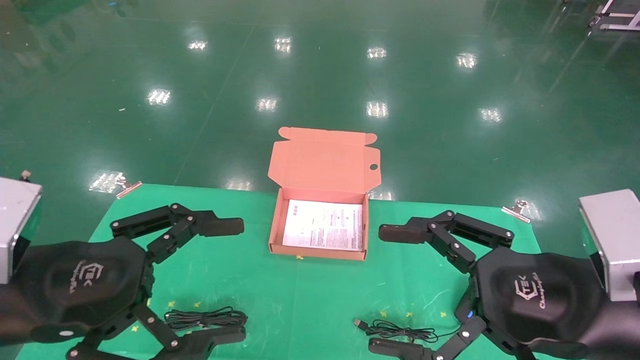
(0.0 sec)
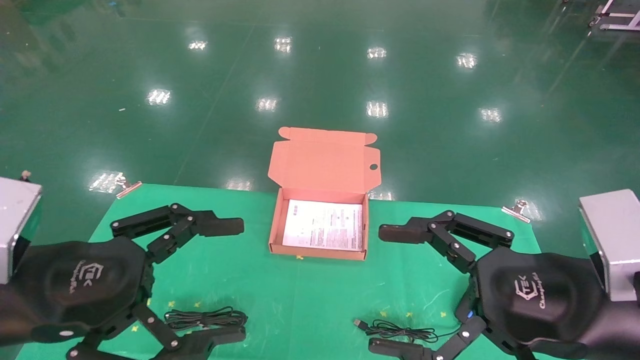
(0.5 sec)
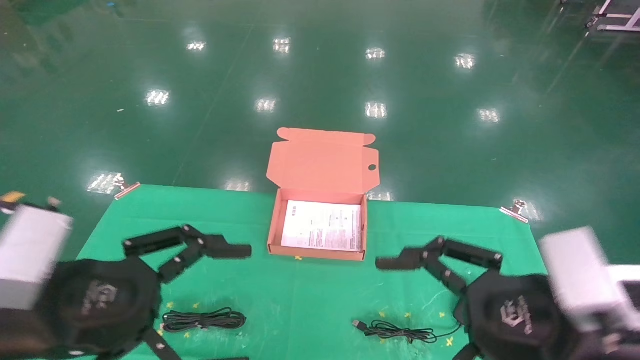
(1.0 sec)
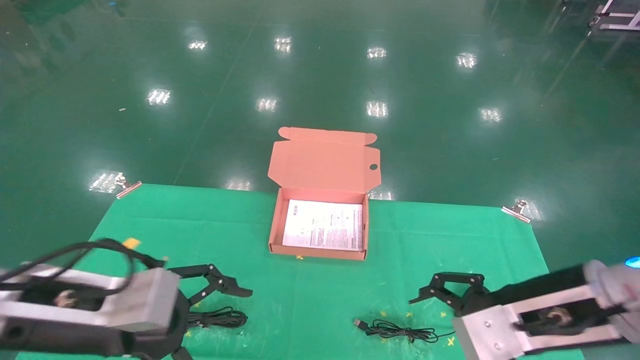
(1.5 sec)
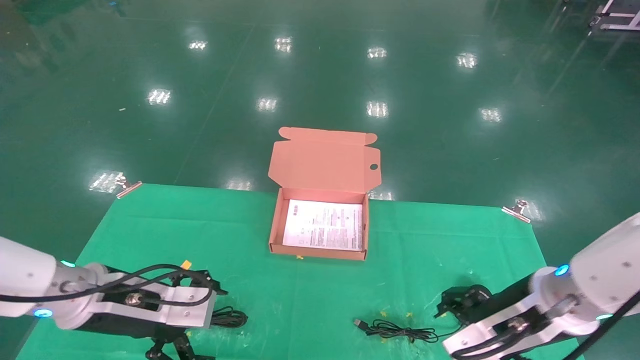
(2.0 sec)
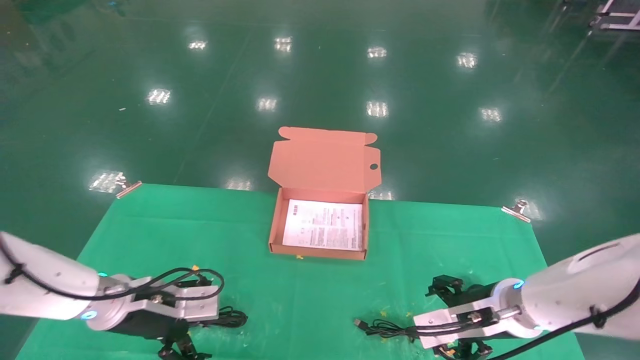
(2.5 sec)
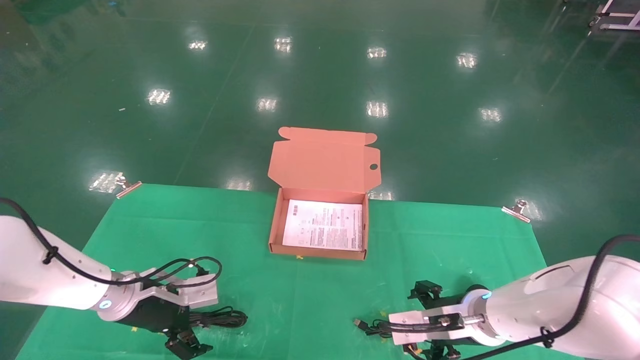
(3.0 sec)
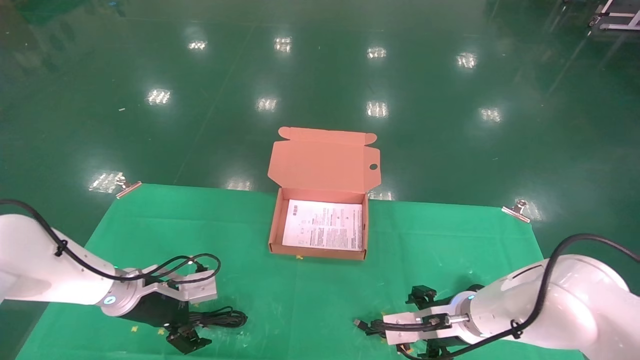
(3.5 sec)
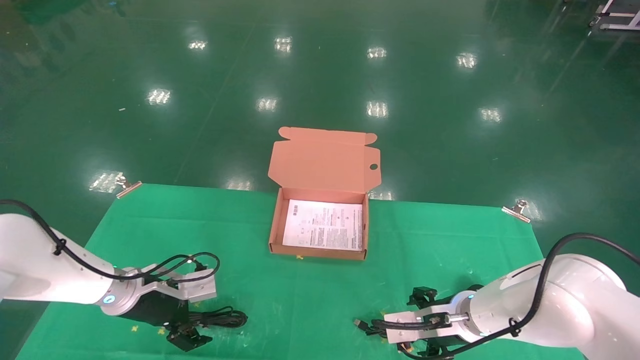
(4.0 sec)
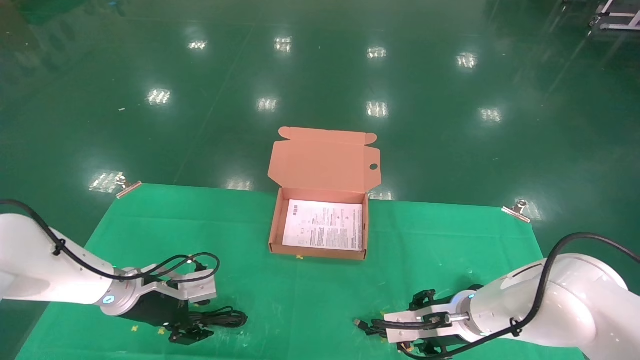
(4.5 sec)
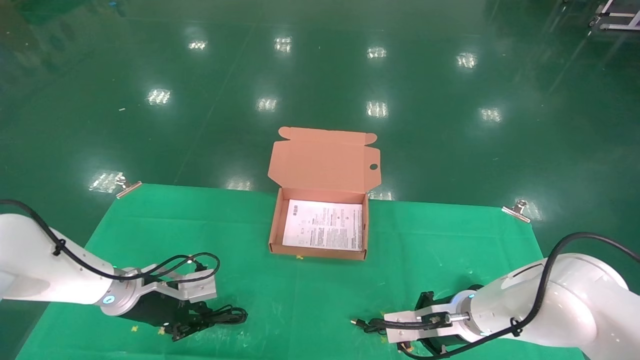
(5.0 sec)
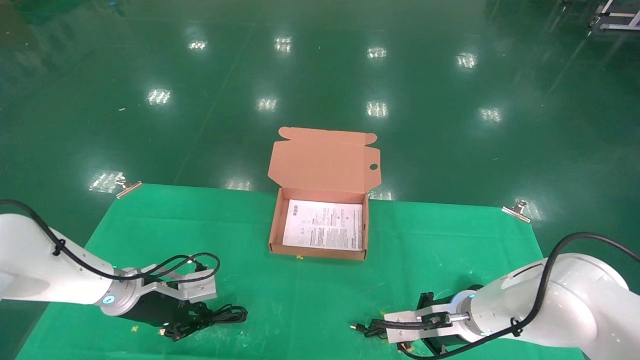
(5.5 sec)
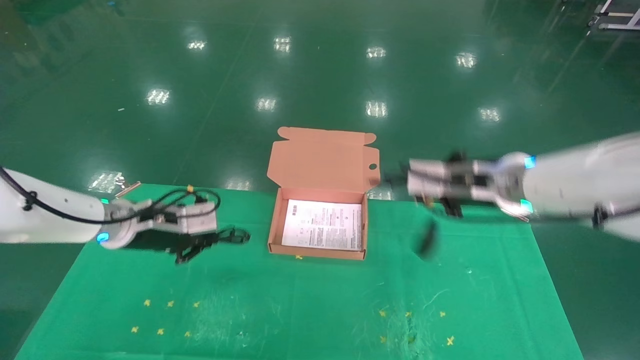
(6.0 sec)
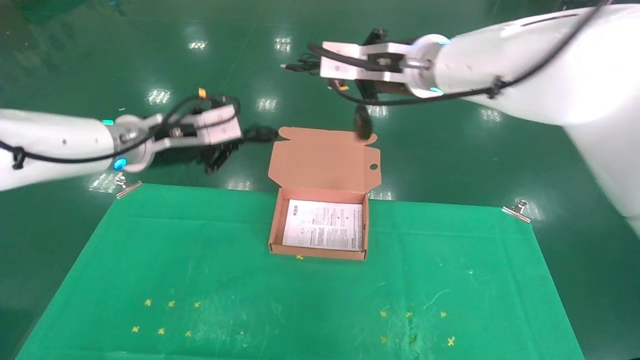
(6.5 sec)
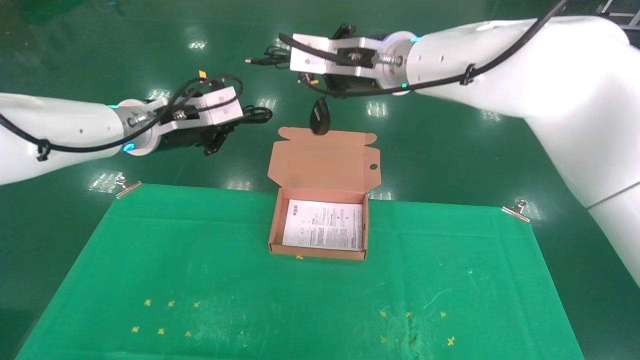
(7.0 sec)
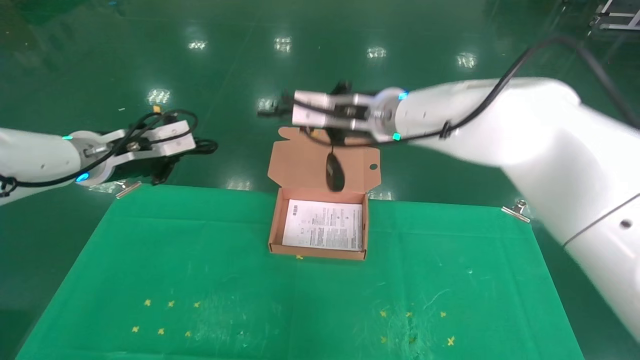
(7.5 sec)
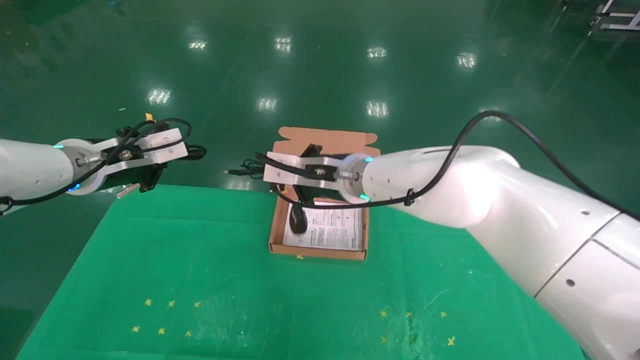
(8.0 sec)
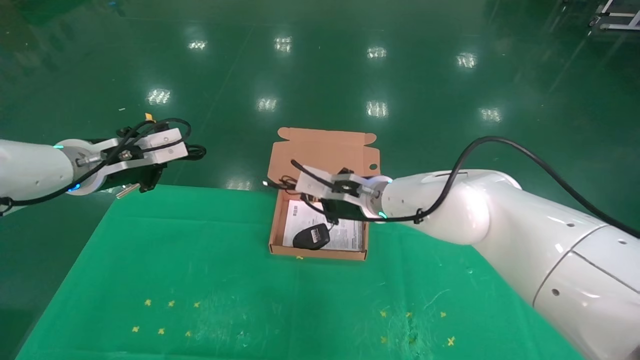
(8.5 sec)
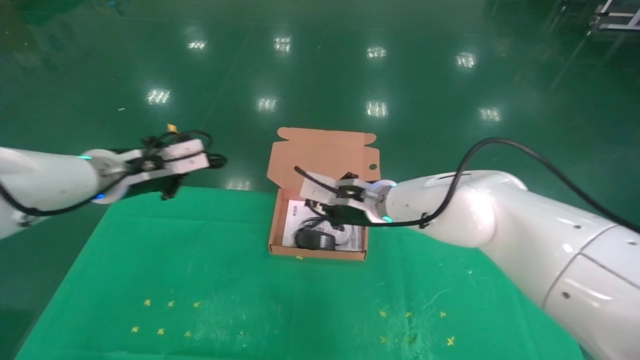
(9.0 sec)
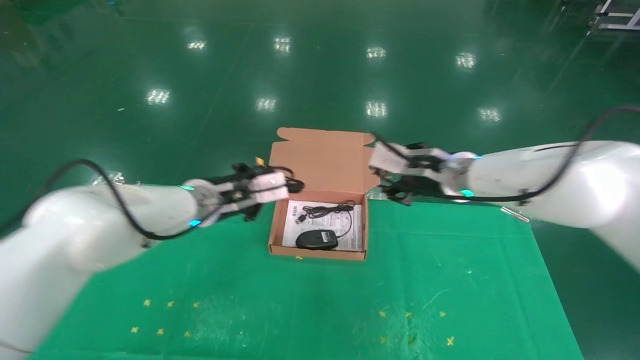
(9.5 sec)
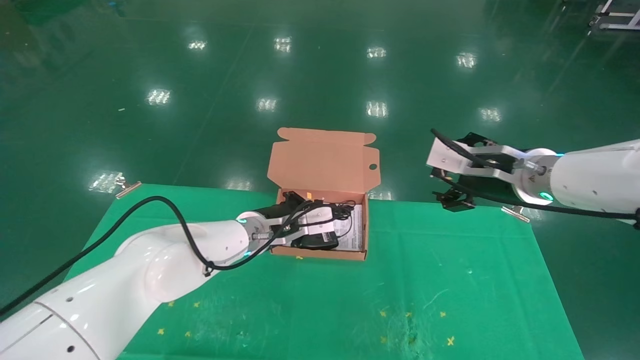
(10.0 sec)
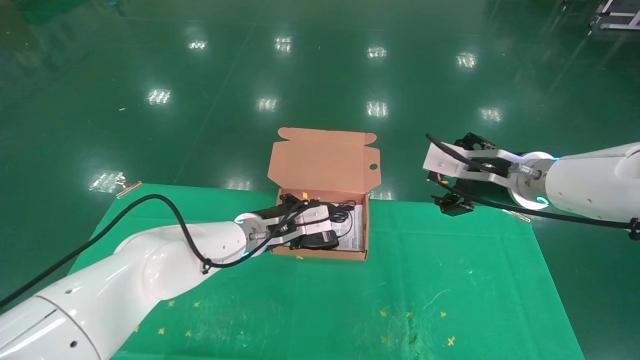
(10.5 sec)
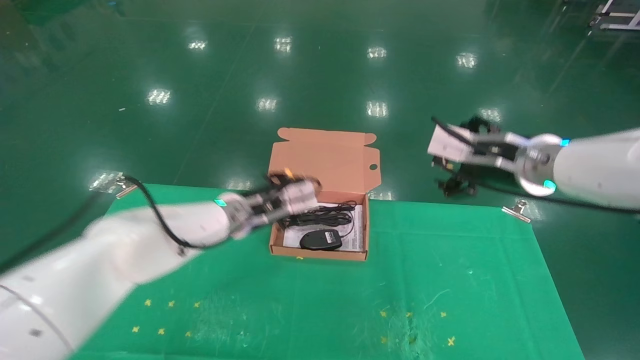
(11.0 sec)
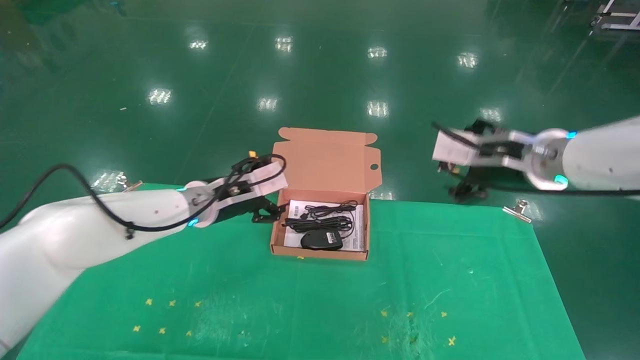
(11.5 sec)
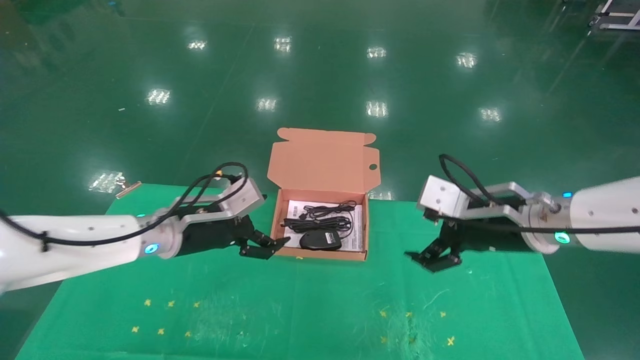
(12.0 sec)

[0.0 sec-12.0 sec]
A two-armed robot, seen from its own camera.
Task of the whole recording: grasp data cable left put into box grasp mouse right put into box.
Step, 1.0 sec to 5.5 sec: Grab and pick up both the mouse and power cord from the accessory packaging area at the same time.
Step, 6.0 sec to 11.0 sec: Place the mouse and power cord into the box.
0.0 sec to 2.0 sec: The two grippers go some 15 cm forward and downward.
2.0 sec to 4.0 sec: The right gripper is displaced downward and forward by approximately 15 cm. Meanwhile the left gripper moves forward and downward, roughly 15 cm.
4.0 sec to 6.0 sec: The left gripper heads upward, covering about 10 cm, and closes; the right gripper heads upward, covering some 20 cm, and closes its fingers.
6.0 sec to 8.0 sec: The right gripper heads to the left, covering some 15 cm. Meanwhile the left gripper moves upward, roughly 10 cm.
8.0 sec to 10.0 sec: The right gripper shifts some 20 cm to the right, and opens. The left gripper is displaced to the right and downward by about 25 cm.
10.0 sec to 12.0 sec: The left gripper travels to the left and backward by roughly 15 cm, and opens its fingers. Meanwhile the right gripper changes place by some 5 cm.
